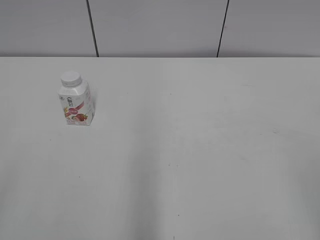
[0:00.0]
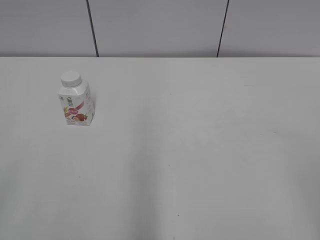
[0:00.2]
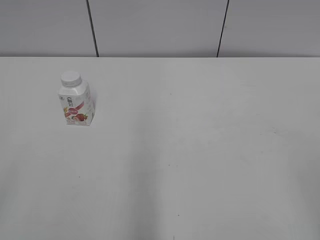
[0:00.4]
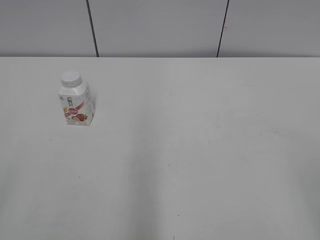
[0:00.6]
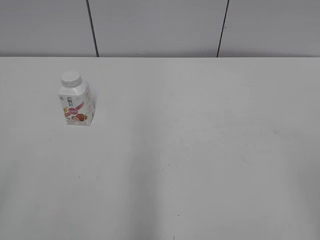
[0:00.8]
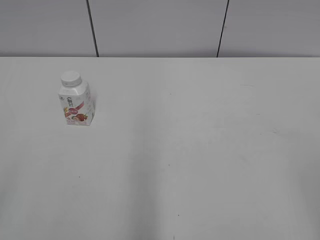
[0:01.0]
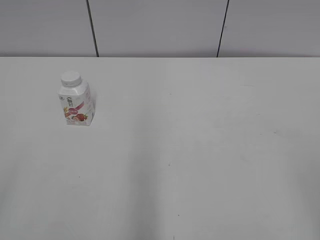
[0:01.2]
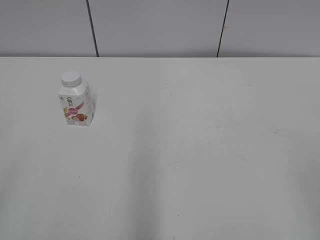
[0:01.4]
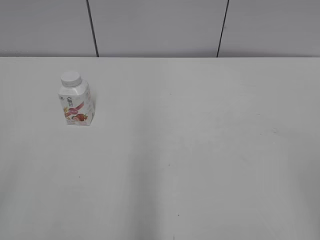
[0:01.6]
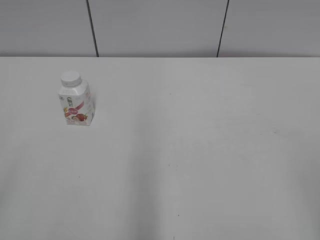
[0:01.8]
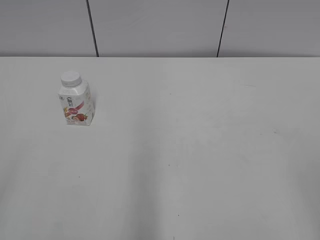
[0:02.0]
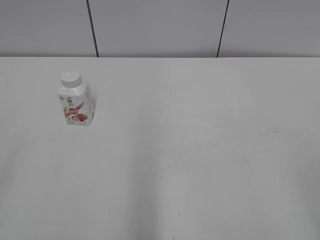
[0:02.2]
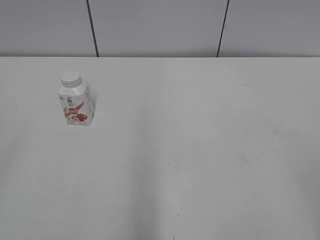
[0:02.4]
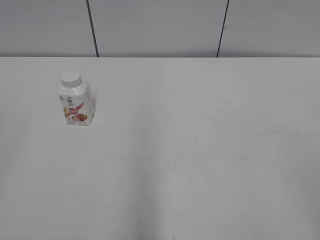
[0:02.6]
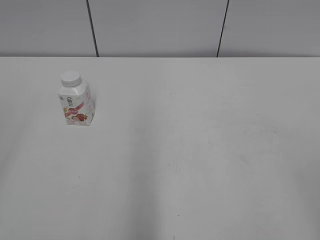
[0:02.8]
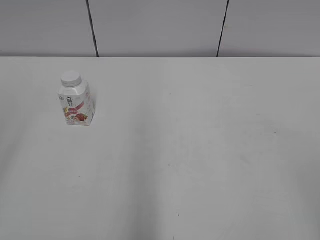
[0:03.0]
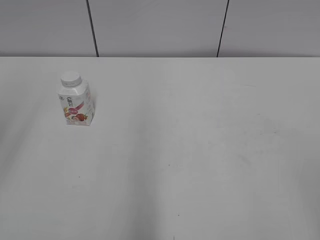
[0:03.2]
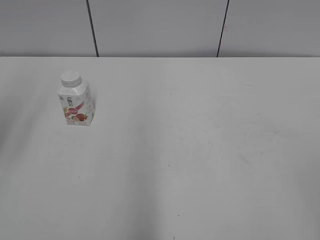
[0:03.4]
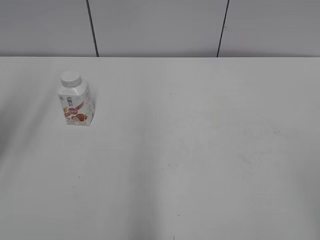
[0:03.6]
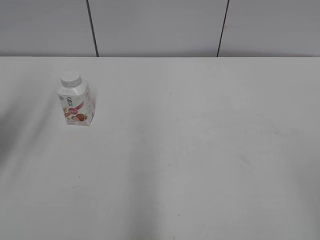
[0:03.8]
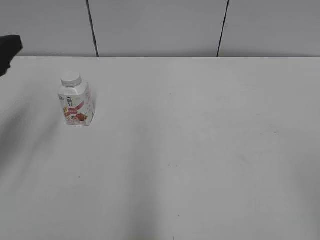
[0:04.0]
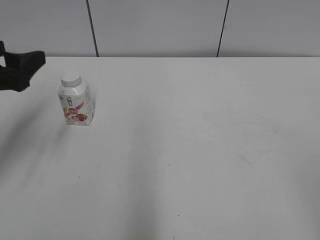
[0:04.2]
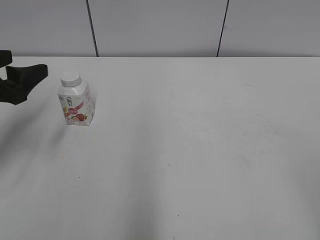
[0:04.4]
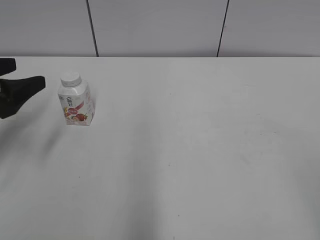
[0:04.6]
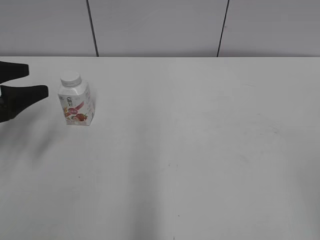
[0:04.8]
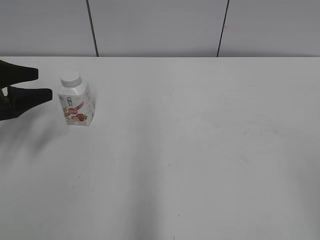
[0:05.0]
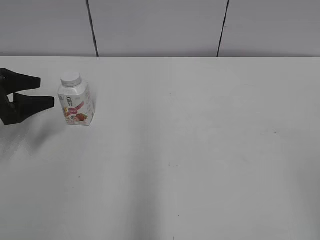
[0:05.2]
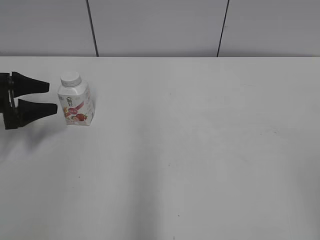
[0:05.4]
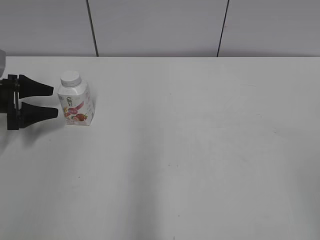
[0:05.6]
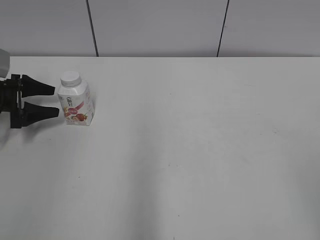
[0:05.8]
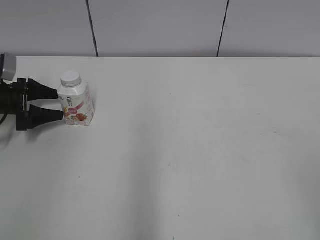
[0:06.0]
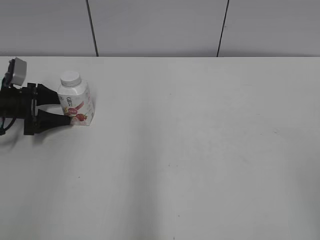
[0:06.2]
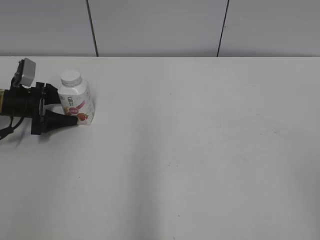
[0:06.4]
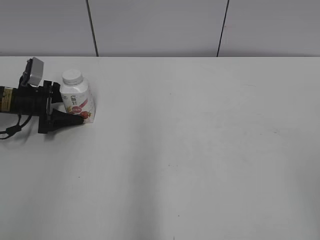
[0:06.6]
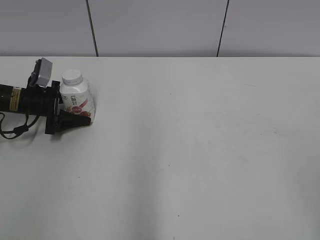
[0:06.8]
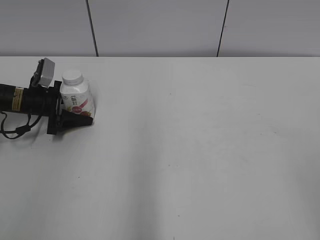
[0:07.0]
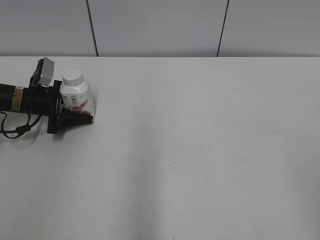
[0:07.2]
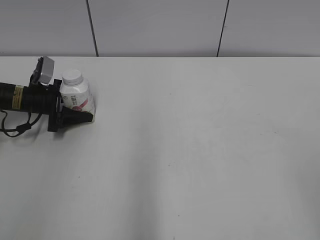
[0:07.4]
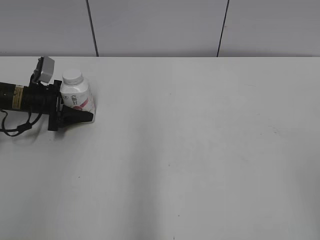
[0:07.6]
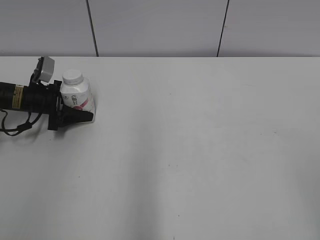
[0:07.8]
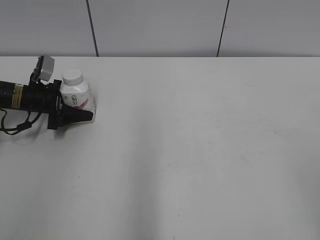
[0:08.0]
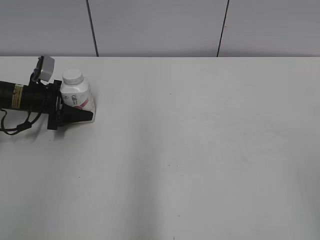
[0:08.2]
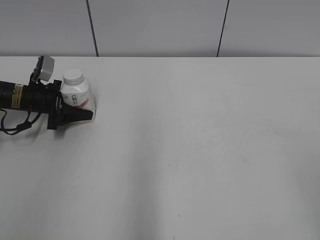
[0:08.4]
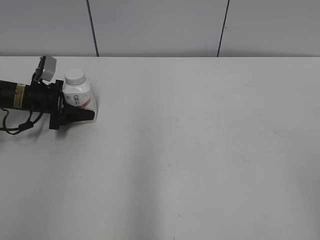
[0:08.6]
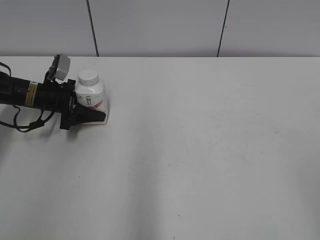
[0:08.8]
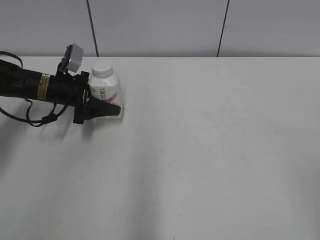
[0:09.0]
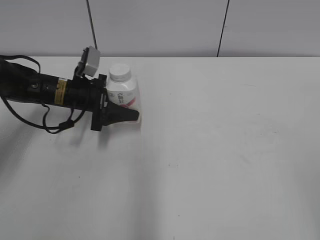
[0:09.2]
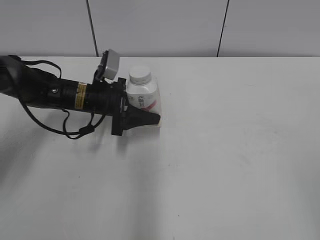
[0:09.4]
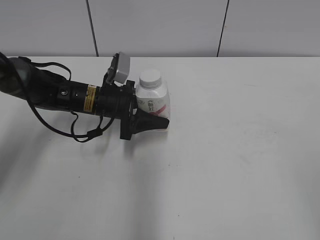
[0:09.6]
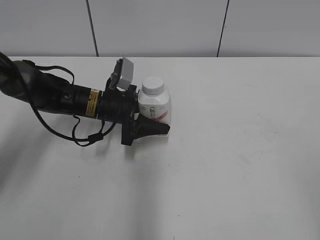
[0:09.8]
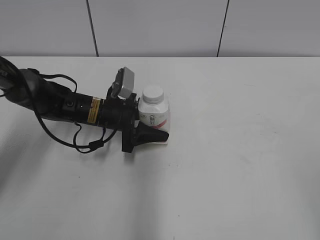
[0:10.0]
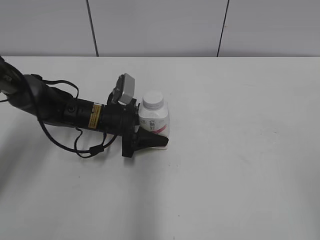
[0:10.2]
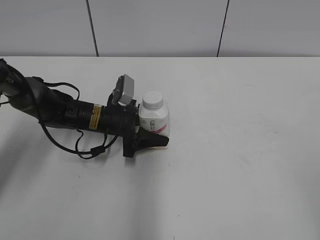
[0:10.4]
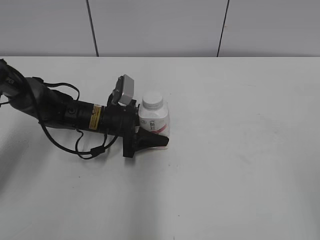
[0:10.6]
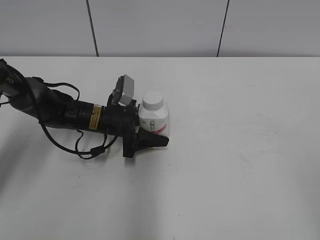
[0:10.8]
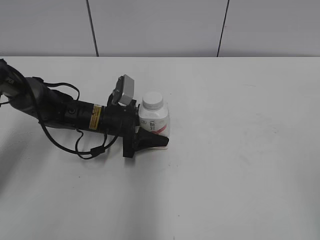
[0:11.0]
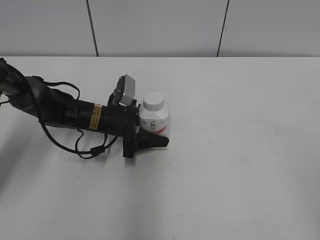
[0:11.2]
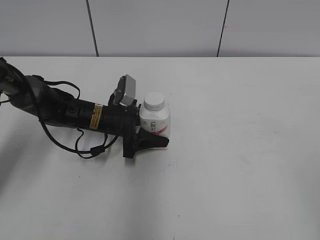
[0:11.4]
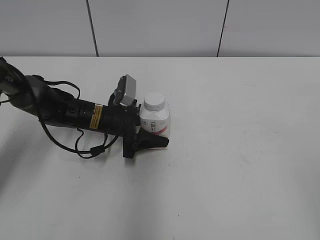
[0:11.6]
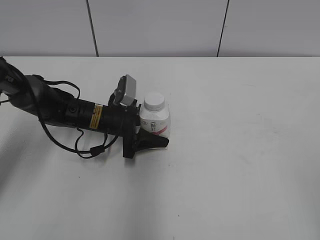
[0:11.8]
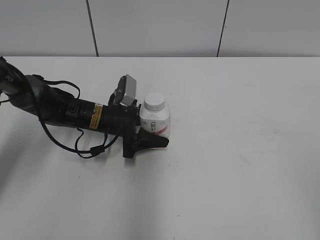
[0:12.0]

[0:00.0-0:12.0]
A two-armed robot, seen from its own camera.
Step, 0:00.0 to 0:08.4: Grab the Yili Changqing with the left hand.
0:03.0 to 0:04.4: The left gripper travels forward and downward by about 25 cm.
0:04.4 to 0:06.0: The left gripper heads forward, downward and to the left, covering approximately 20 cm.
0:06.0 to 0:07.6: The left gripper shifts about 5 cm to the right, and closes its fingers.
0:07.6 to 0:09.0: The left gripper heads to the right, covering roughly 5 cm.
0:09.0 to 0:10.4: The left gripper goes some 10 cm to the right.
0:10.4 to 0:12.0: Both grippers stay about where they are.

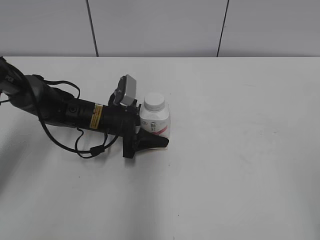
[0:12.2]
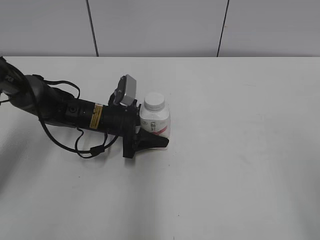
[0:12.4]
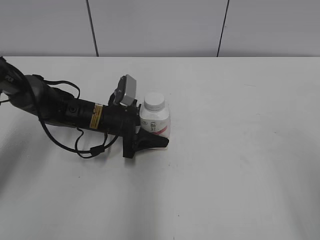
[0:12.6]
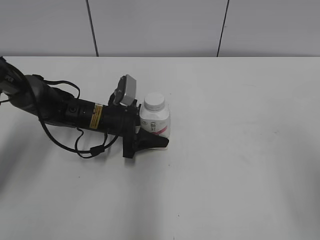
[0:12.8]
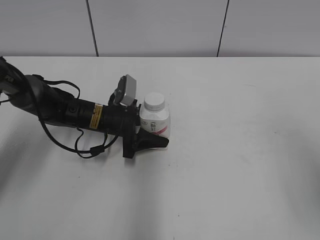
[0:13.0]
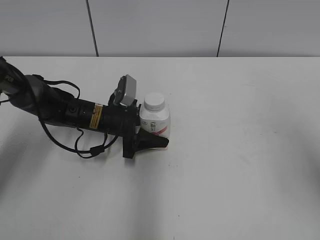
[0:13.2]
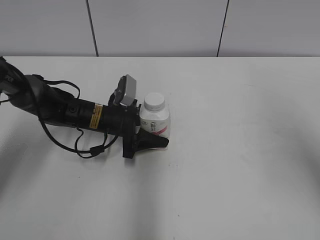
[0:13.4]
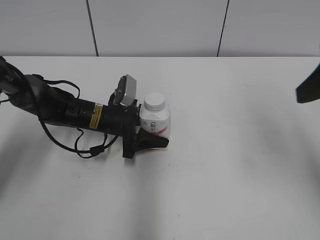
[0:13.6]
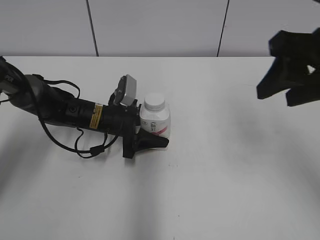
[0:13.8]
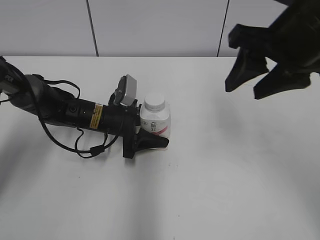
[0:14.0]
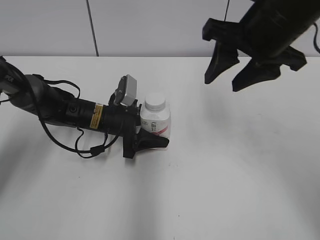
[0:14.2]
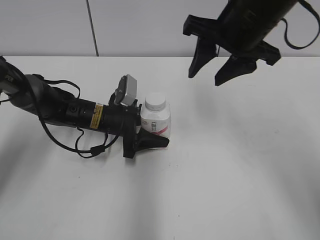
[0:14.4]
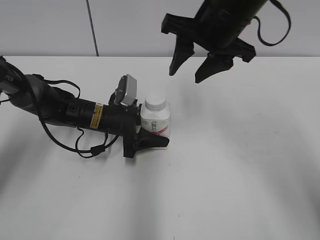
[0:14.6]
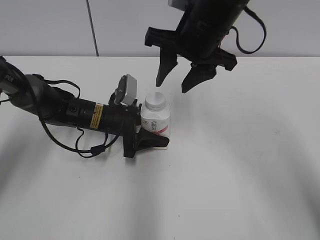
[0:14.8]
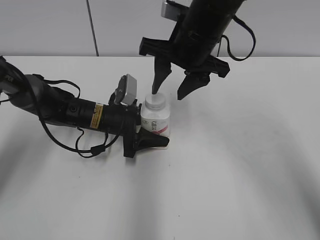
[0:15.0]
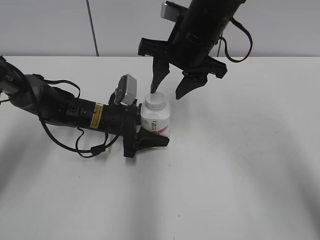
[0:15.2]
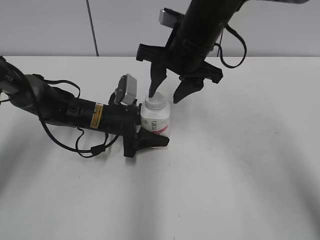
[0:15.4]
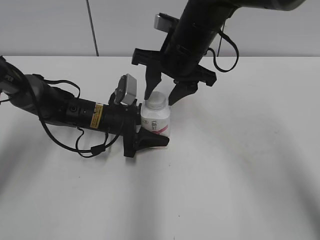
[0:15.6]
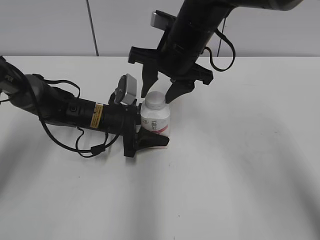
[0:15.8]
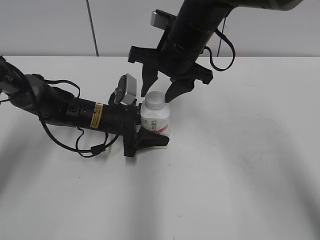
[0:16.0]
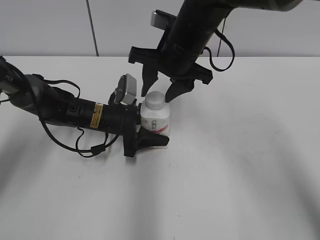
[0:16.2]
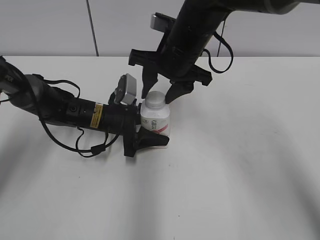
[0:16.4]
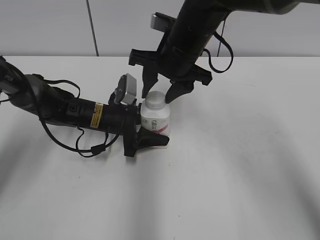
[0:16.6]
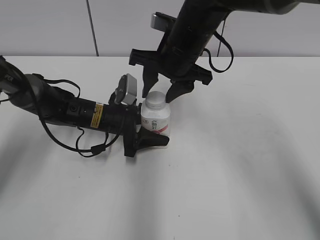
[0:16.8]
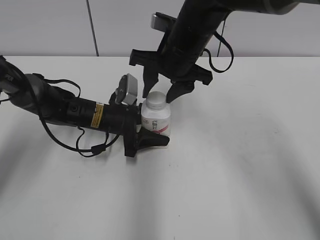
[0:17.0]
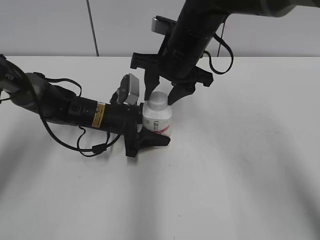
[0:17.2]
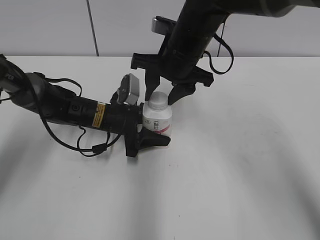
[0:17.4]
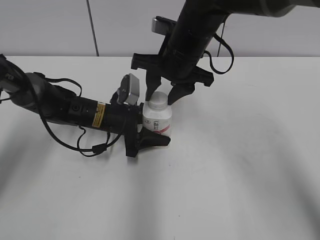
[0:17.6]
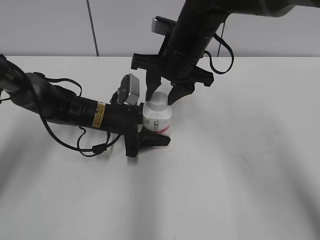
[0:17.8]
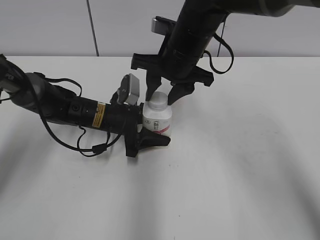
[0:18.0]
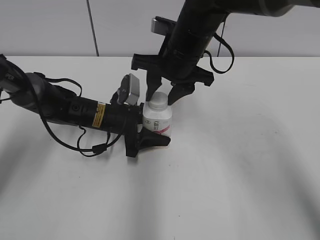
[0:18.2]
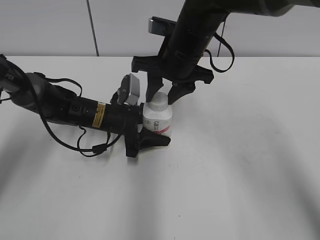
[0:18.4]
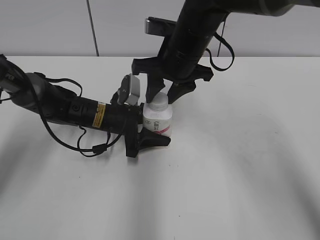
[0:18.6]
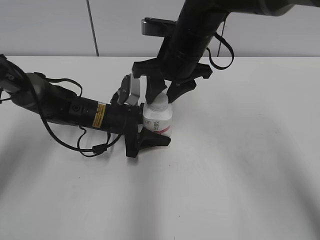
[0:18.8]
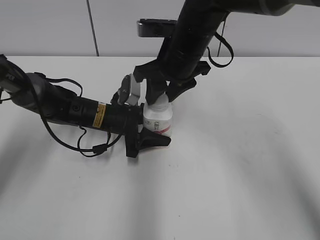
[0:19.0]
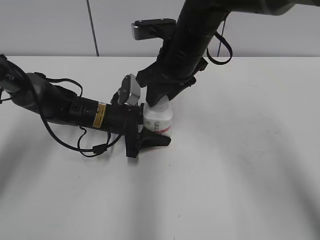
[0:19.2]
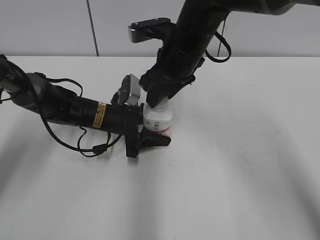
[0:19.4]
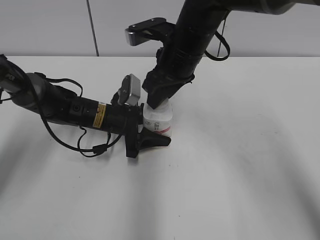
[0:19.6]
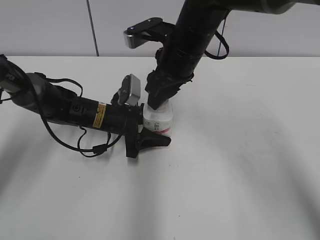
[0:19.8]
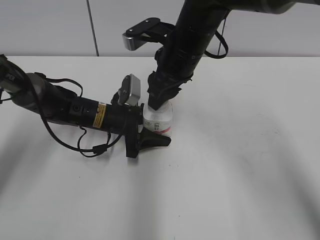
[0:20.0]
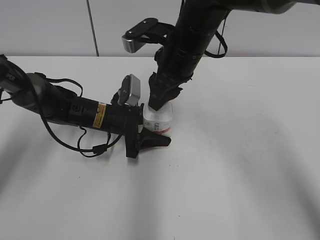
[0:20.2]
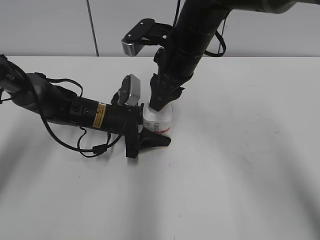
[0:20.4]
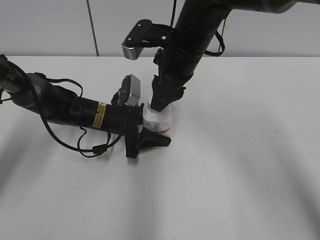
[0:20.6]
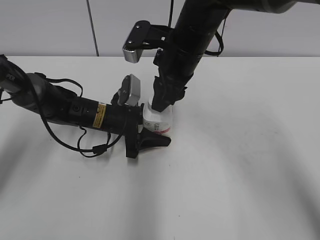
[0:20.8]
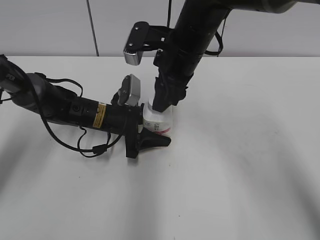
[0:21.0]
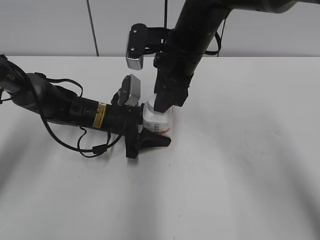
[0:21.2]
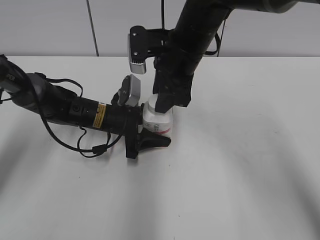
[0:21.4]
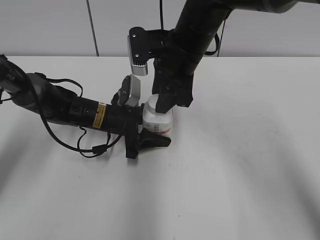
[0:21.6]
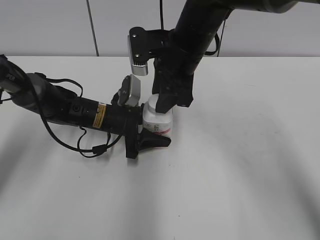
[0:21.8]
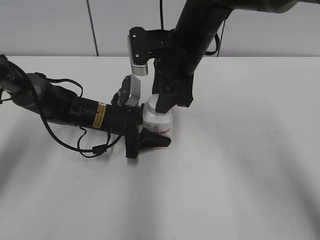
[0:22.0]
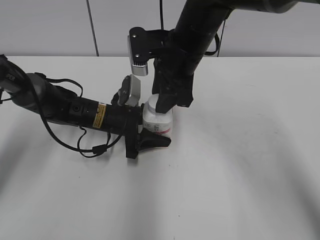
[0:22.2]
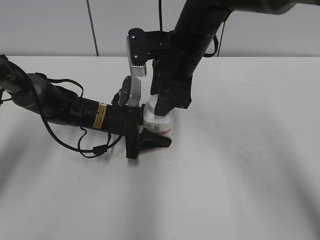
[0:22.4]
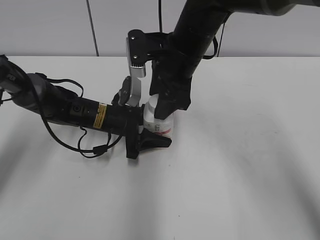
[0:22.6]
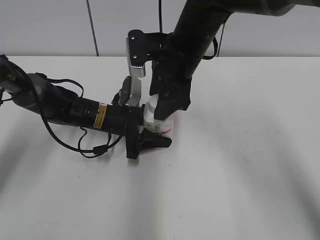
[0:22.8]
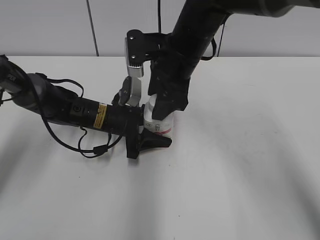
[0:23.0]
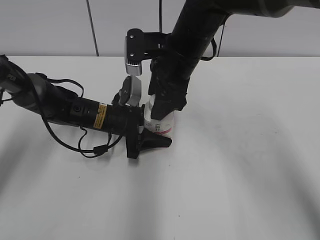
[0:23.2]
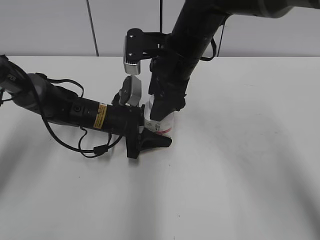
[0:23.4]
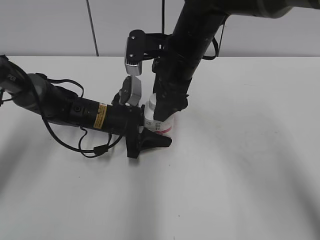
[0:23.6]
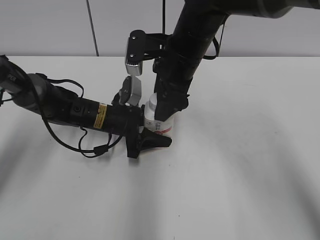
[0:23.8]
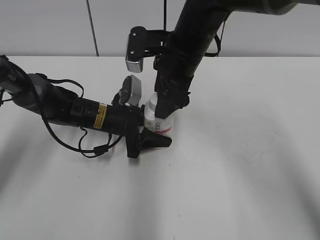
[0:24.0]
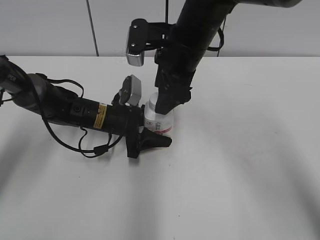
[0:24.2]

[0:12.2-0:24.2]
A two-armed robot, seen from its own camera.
0:12.2 to 0:13.8: The right gripper goes approximately 25 cm forward and to the left, and closes up.
0:13.8 to 0:15.2: The right gripper heads to the left, forward and downward, covering some 20 cm.
0:15.2 to 0:16.6: The grippers move only a little.
0:16.6 to 0:18.2: The two grippers keep their place.
0:21.2 to 0:22.6: The right gripper opens its fingers.
0:22.6 to 0:24.2: The grippers make only small movements.
